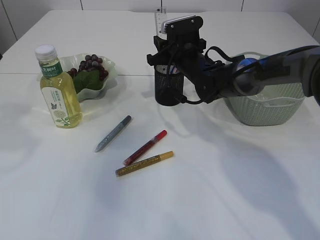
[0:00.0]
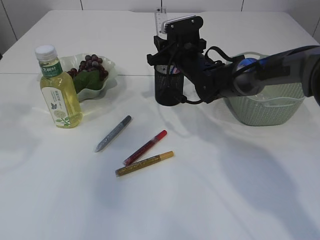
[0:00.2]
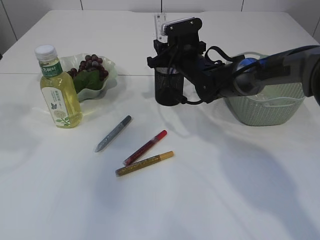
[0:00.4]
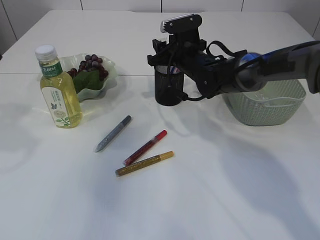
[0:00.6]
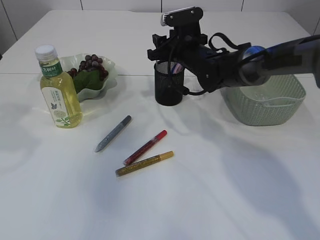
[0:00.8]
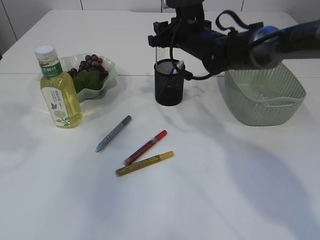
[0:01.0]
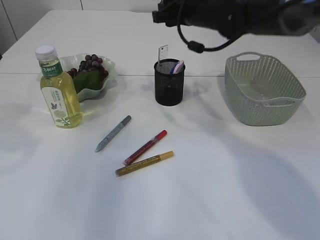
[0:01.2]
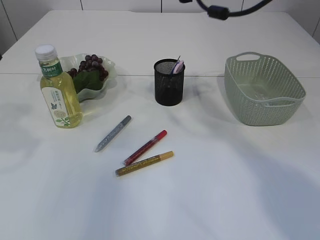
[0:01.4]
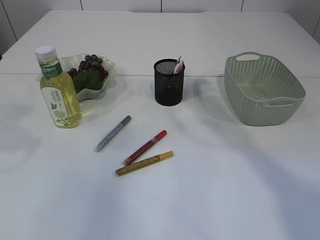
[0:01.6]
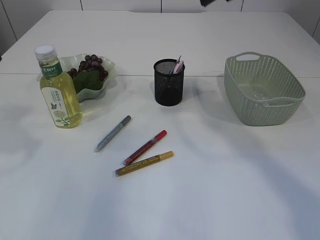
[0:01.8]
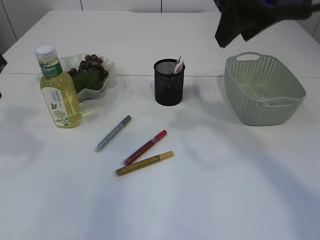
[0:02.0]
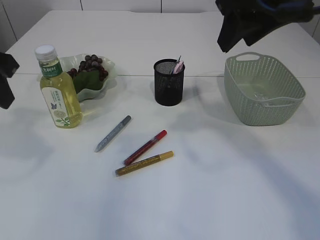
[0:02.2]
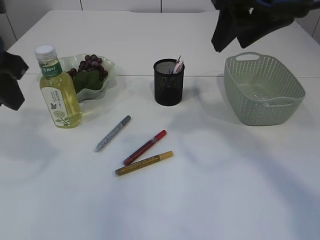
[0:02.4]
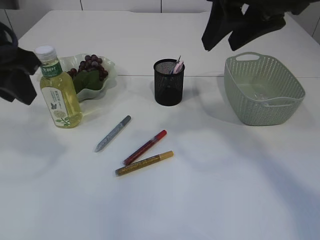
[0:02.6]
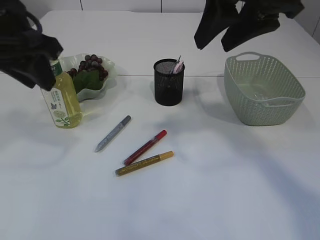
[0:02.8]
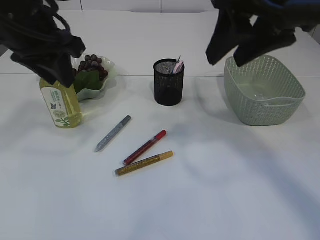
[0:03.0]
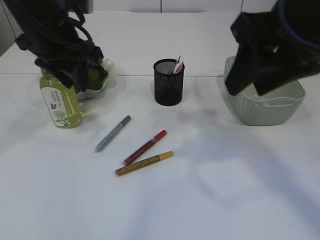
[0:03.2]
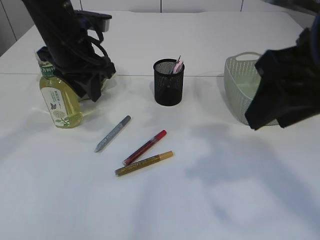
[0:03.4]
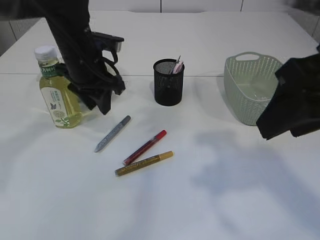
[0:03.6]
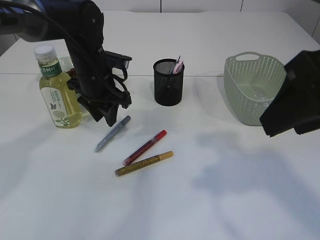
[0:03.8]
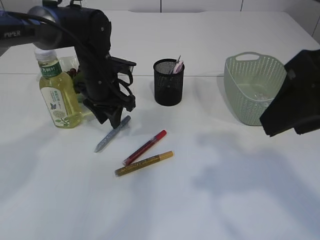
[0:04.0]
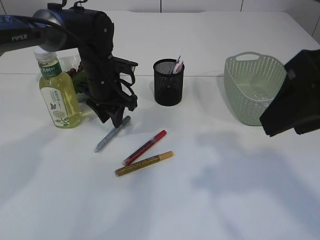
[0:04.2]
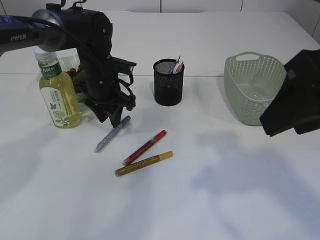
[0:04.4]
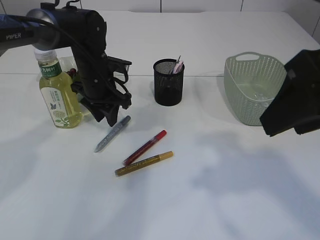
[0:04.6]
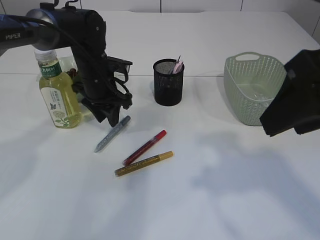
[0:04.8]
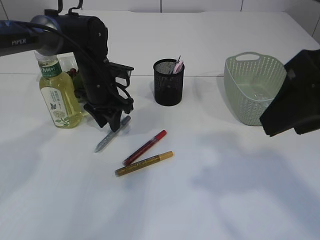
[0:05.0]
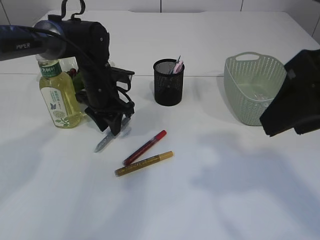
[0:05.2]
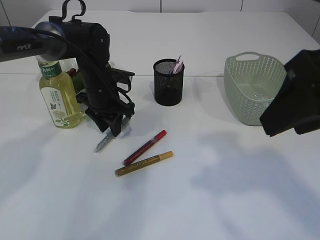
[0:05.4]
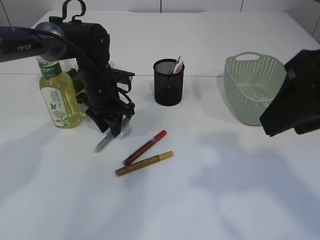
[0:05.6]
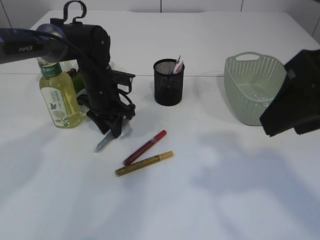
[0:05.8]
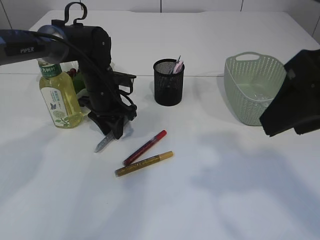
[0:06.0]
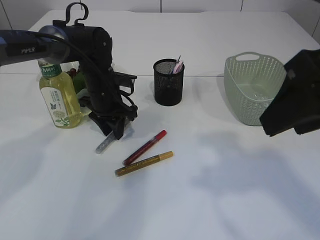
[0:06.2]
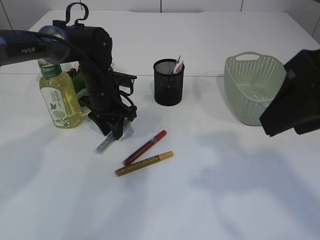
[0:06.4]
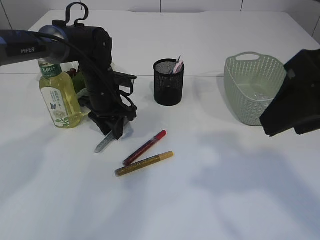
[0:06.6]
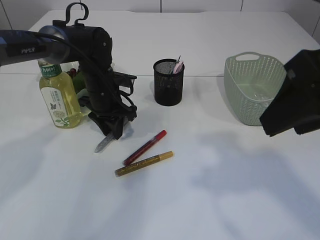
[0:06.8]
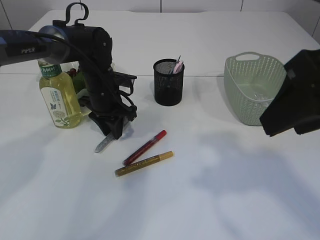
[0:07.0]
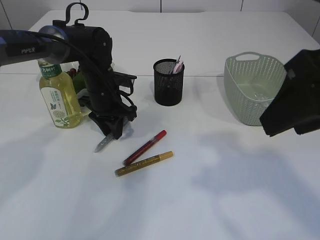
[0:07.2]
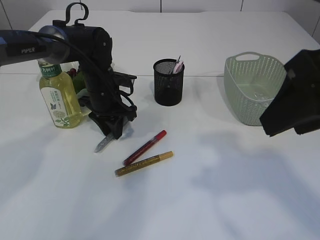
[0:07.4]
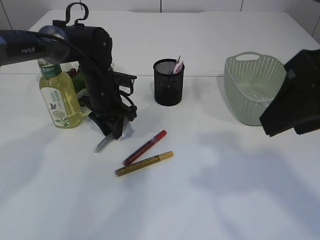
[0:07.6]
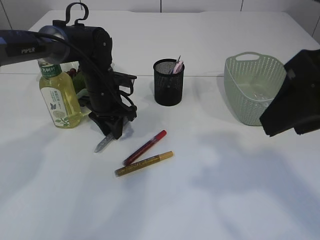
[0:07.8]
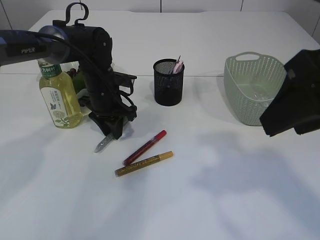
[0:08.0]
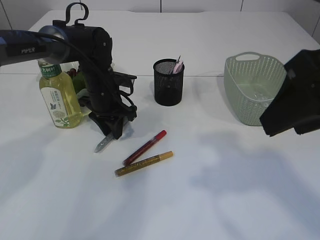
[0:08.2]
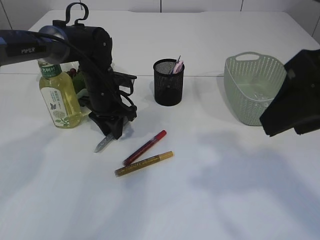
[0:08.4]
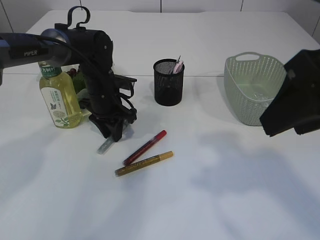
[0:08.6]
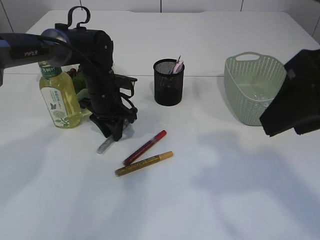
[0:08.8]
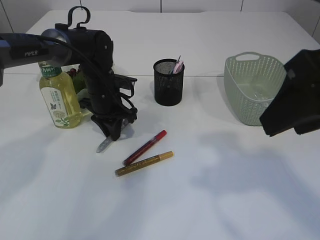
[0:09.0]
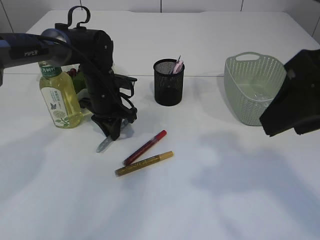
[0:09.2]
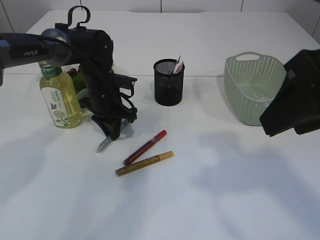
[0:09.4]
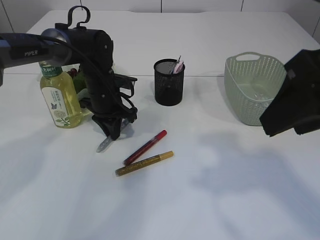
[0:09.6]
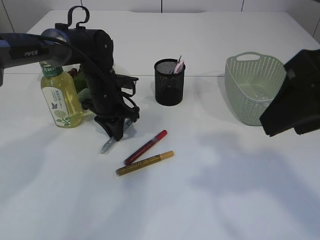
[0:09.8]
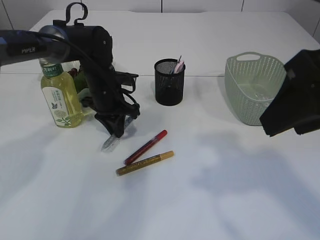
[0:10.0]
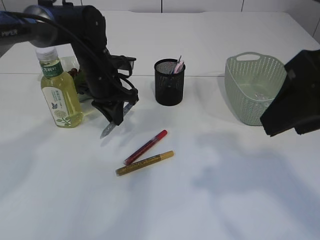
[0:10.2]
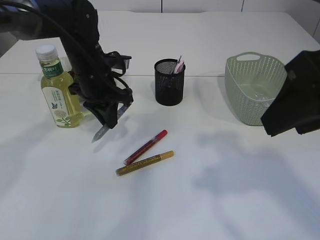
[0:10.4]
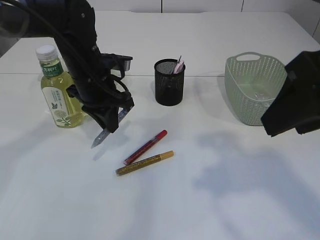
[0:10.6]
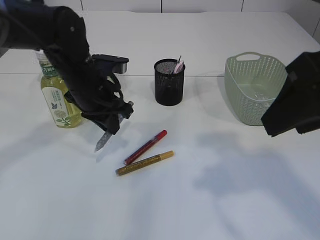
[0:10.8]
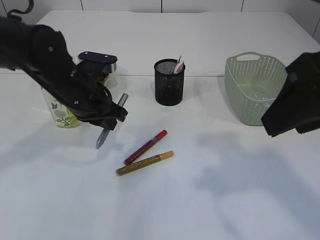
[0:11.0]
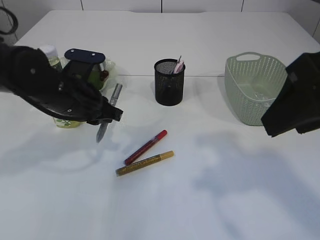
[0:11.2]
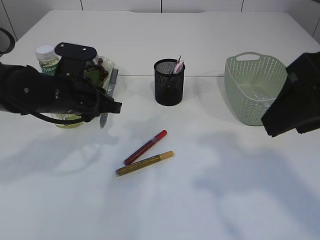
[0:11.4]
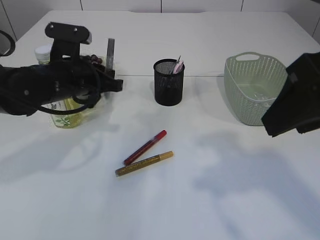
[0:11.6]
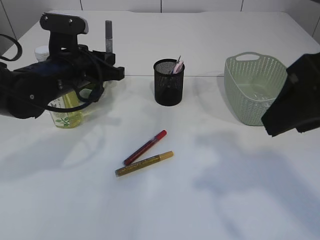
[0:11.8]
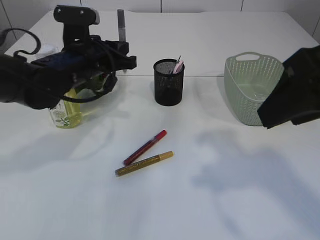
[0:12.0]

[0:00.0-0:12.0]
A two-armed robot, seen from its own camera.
Step, 0:01.2 to 0:10.8: pick up the silver glue.
0:00.0 to 0:01.6: The right gripper is displaced upward and backward by about 25 cm.
0:01.6 to 0:03.0: The right gripper moves backward, some 10 cm. The left gripper shifts about 10 cm to the right.
0:03.0 to 0:04.4: The left gripper shifts roughly 20 cm downward and forward; the right gripper goes roughly 10 cm backward.
0:04.4 to 0:06.0: The grippers move only a little.
0:06.0 to 0:09.0: Both grippers stay put.
0:09.0 to 0:10.4: The left gripper goes approximately 5 cm upward.

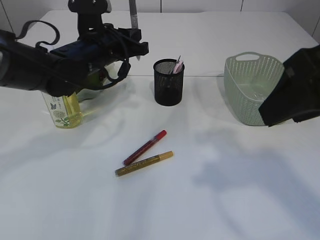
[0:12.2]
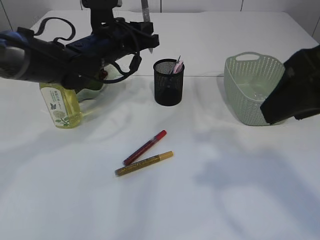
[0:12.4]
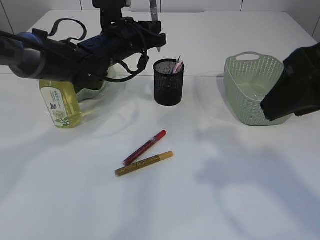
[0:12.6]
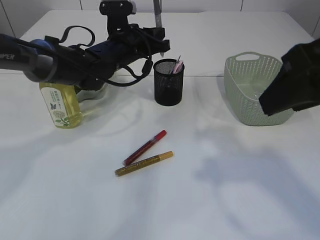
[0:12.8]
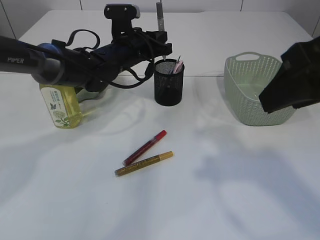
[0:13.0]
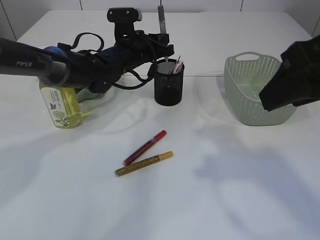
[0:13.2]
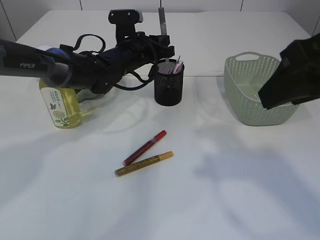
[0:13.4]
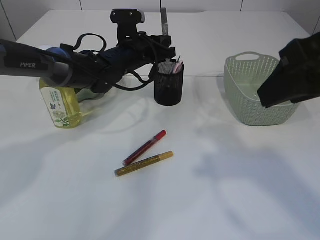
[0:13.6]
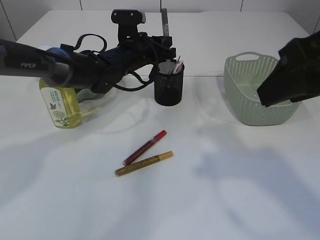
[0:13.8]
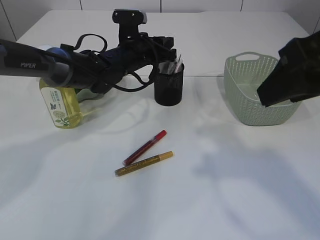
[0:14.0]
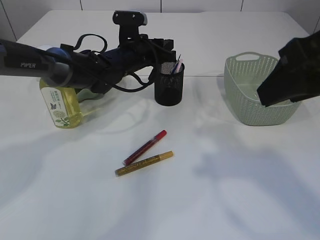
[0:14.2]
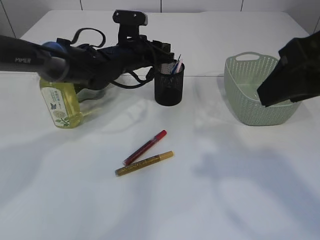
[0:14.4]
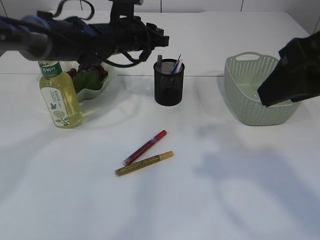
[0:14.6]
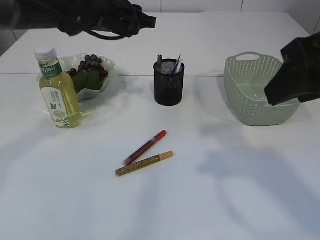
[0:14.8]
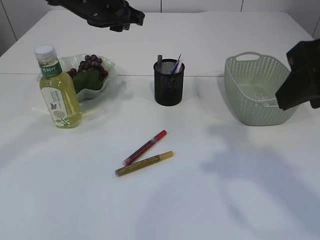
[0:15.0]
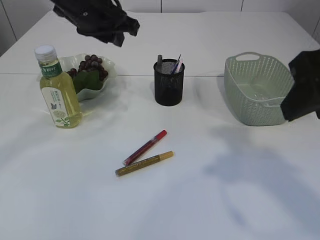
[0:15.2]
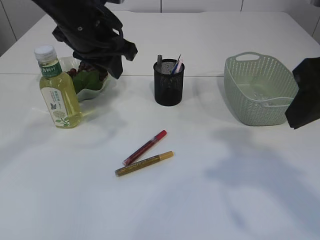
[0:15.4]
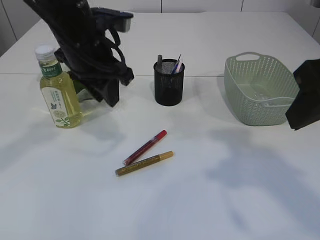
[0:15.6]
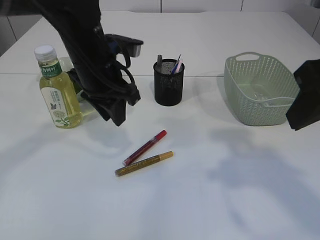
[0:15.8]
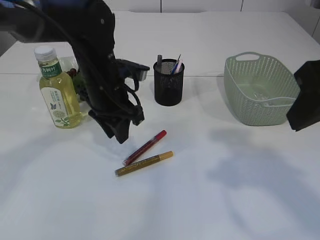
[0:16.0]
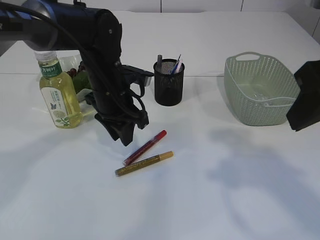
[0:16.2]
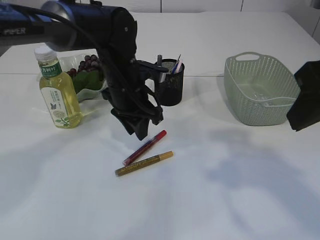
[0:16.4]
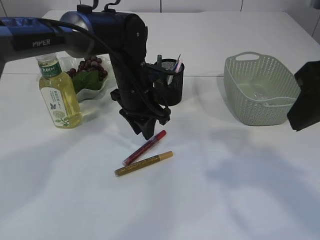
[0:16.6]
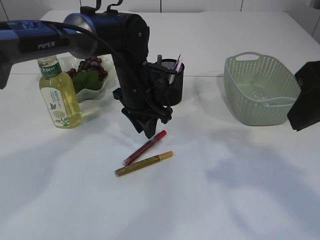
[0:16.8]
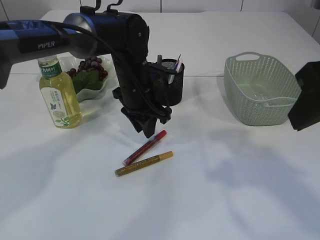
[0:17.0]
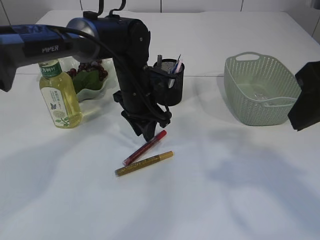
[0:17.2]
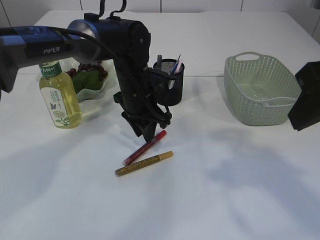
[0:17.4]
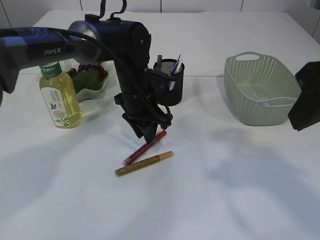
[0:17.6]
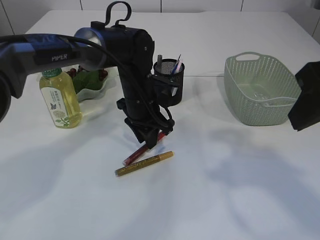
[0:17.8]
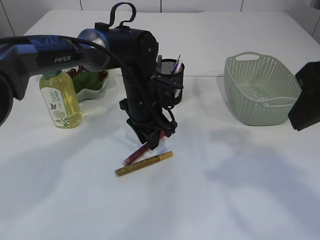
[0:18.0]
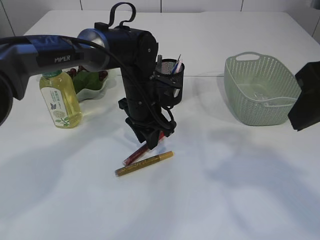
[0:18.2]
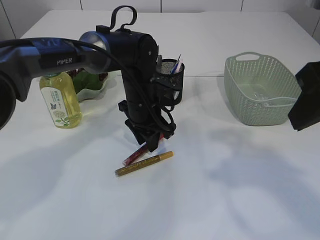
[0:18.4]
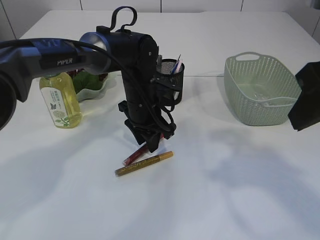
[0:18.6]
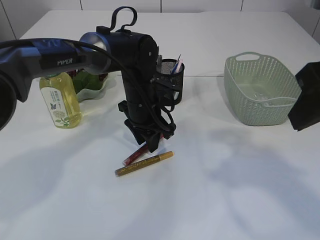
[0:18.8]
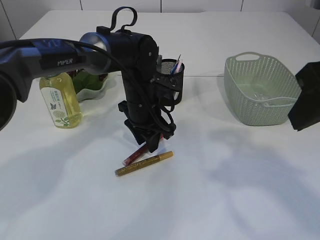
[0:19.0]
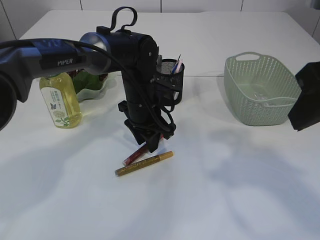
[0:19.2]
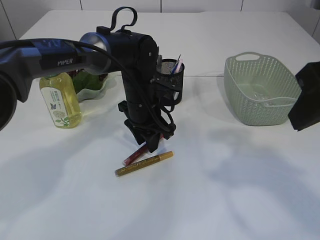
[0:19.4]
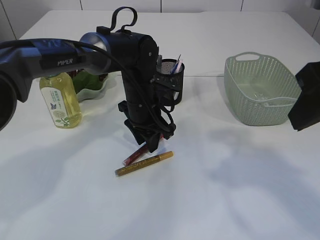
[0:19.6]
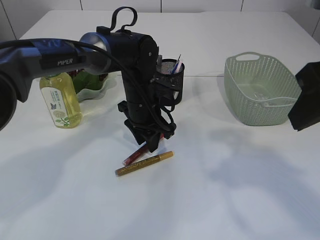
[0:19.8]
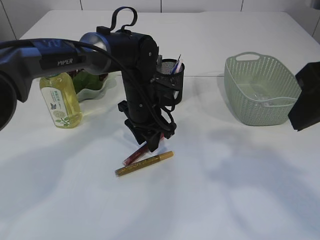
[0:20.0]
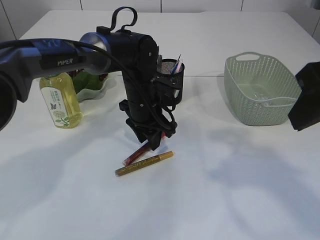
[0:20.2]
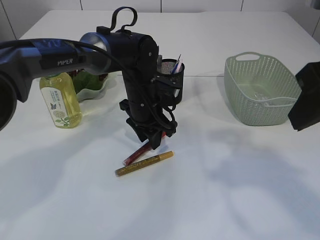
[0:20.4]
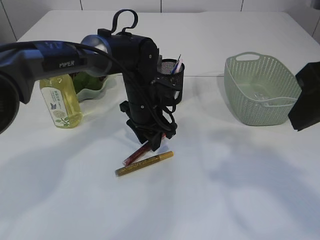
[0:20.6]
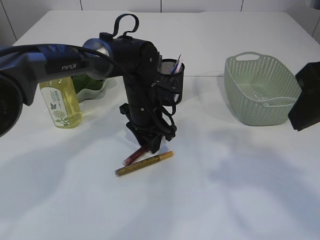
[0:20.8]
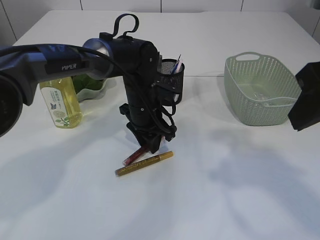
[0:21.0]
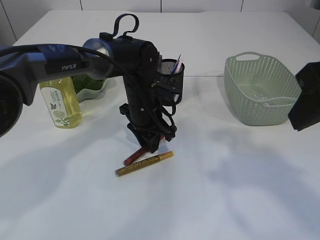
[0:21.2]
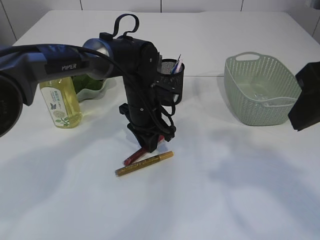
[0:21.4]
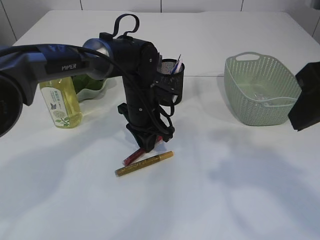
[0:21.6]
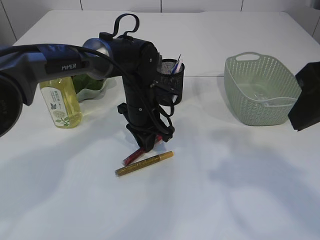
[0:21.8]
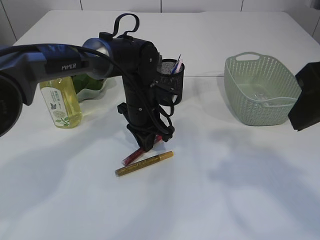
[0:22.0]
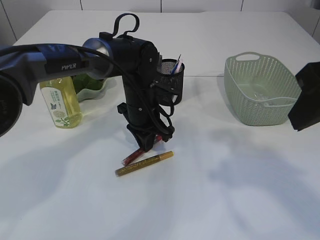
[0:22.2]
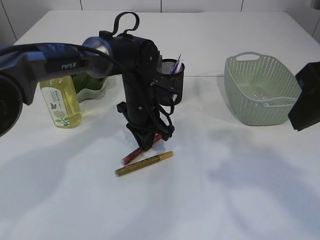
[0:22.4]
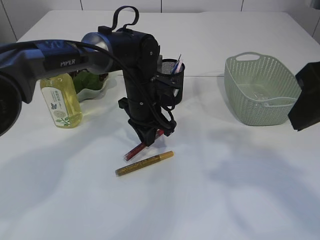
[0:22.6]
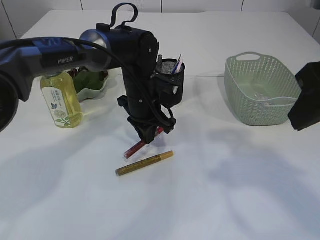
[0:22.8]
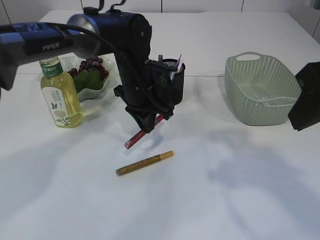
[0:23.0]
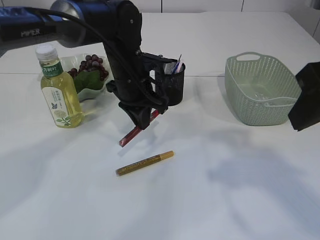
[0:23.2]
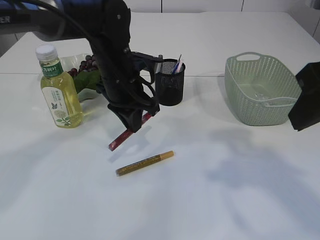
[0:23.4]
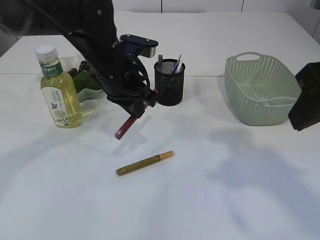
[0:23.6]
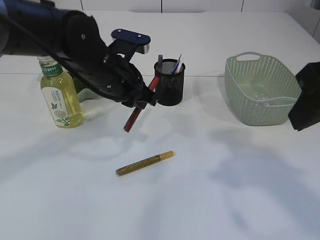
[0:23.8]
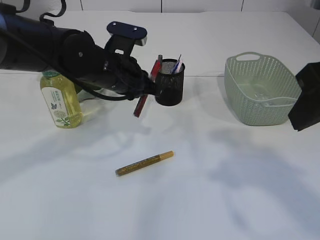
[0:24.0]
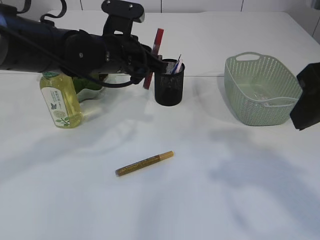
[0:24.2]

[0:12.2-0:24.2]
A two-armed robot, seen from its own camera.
Step, 0:12.2 to 0:14.2: place the silver glue into the pen holder.
Step, 0:14.4 to 0:23.4: pick up the red glue.
0:12.2 to 0:13.8: The left gripper heads forward and to the right, covering roughly 10 cm.
0:13.8 to 0:15.2: The left gripper heads upward and backward, covering roughly 15 cm.
0:15.2 to 0:16.6: The left gripper moves downward and to the right, approximately 15 cm.
0:16.6 to 0:18.2: The grippers stay close to where they were, moving slightly.
0:18.2 to 0:19.8: The two grippers keep their place.
0:19.8 to 0:22.6: The two grippers keep their place.
0:22.6 to 0:24.2: The left gripper shifts some 10 cm upward.
